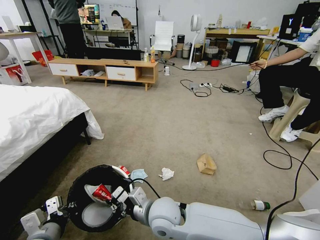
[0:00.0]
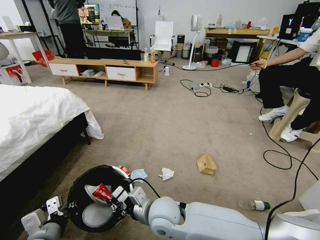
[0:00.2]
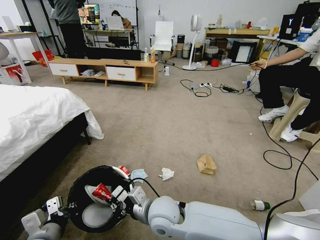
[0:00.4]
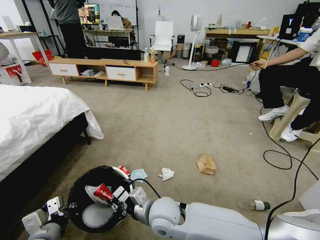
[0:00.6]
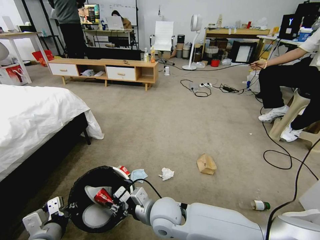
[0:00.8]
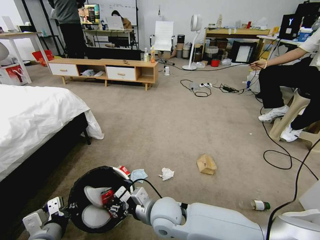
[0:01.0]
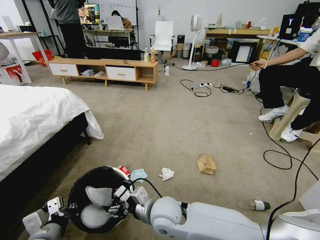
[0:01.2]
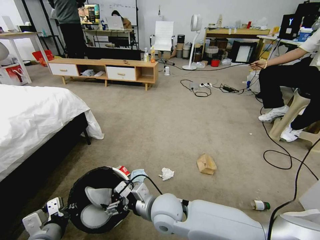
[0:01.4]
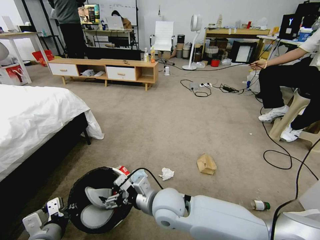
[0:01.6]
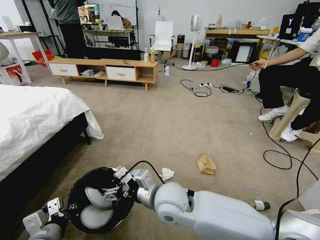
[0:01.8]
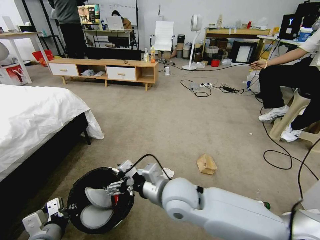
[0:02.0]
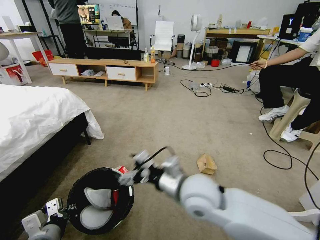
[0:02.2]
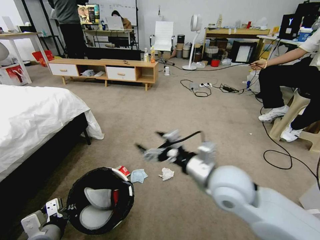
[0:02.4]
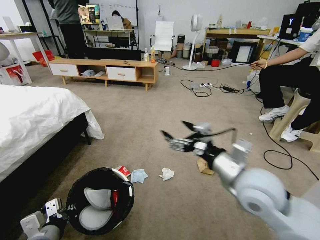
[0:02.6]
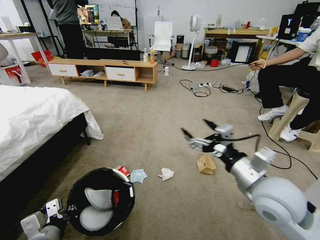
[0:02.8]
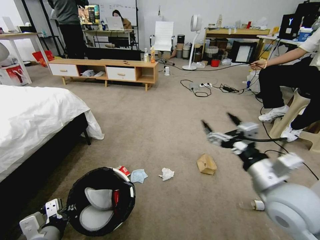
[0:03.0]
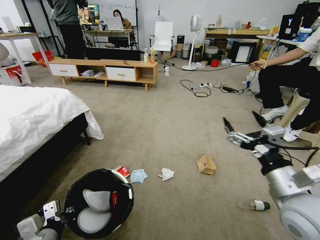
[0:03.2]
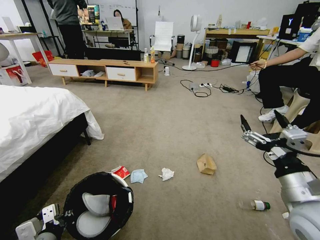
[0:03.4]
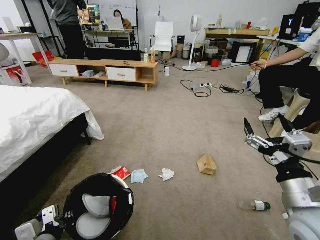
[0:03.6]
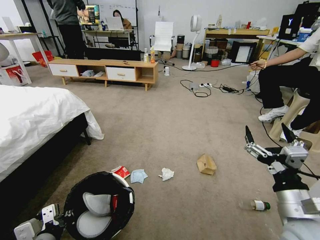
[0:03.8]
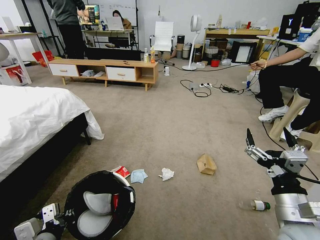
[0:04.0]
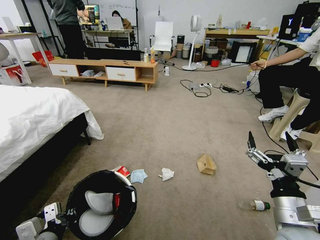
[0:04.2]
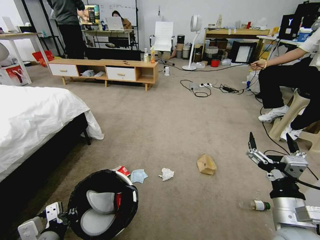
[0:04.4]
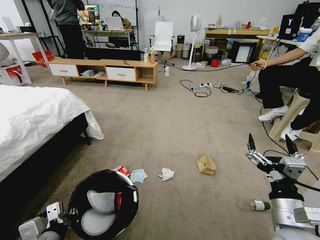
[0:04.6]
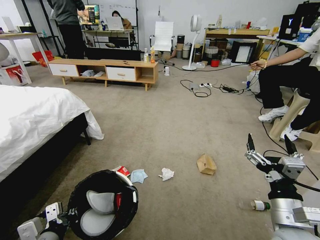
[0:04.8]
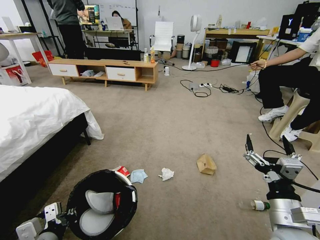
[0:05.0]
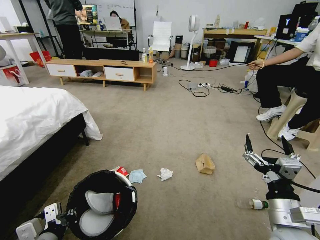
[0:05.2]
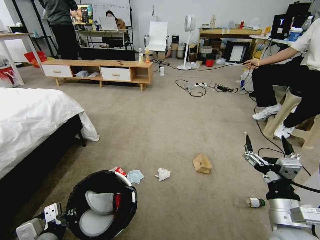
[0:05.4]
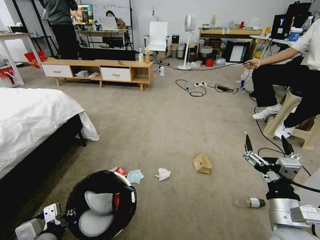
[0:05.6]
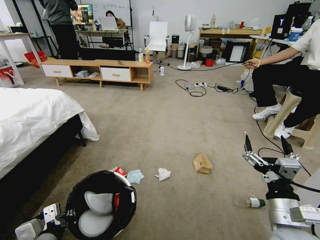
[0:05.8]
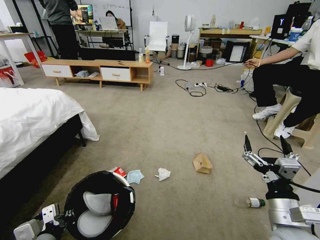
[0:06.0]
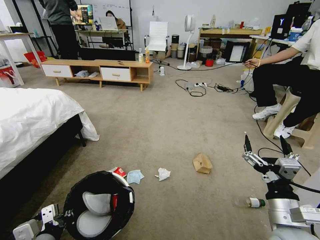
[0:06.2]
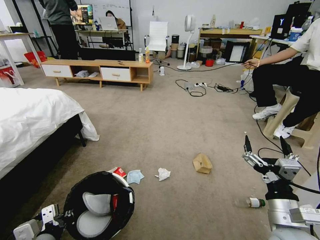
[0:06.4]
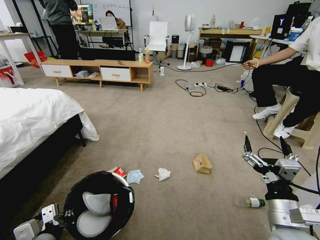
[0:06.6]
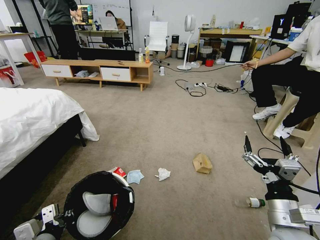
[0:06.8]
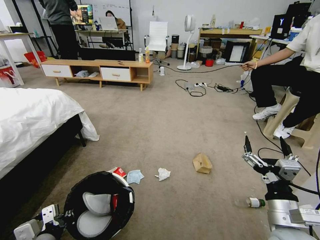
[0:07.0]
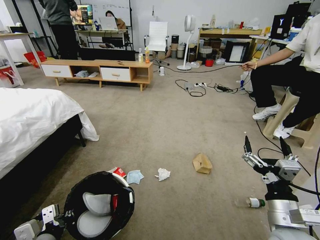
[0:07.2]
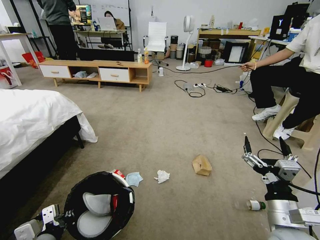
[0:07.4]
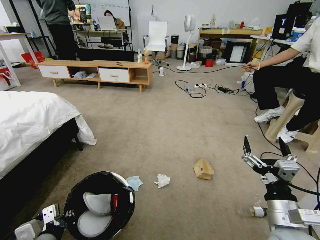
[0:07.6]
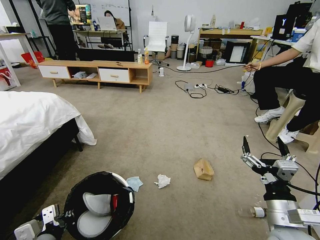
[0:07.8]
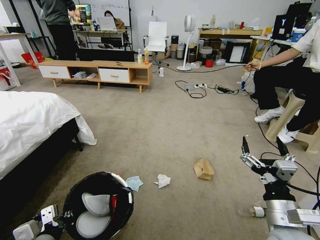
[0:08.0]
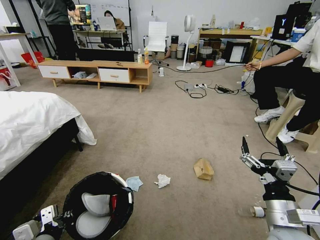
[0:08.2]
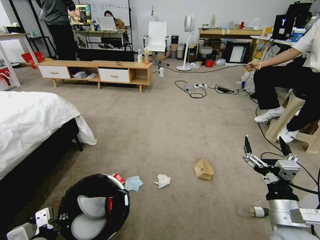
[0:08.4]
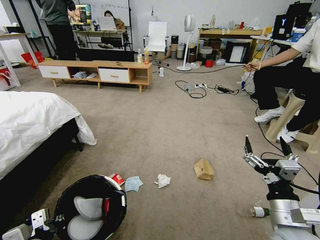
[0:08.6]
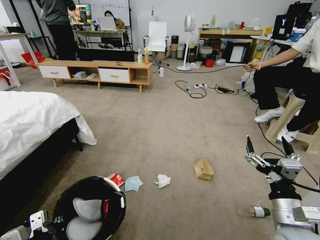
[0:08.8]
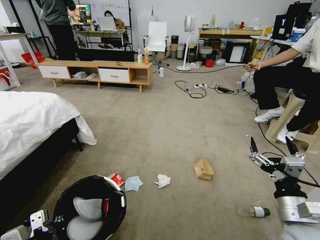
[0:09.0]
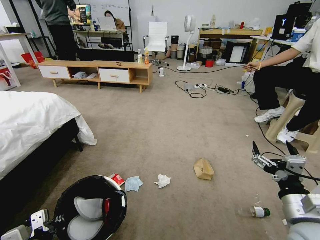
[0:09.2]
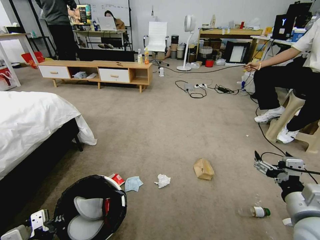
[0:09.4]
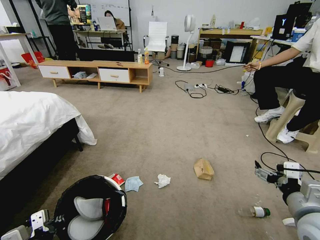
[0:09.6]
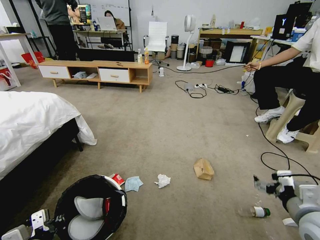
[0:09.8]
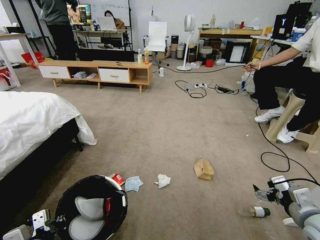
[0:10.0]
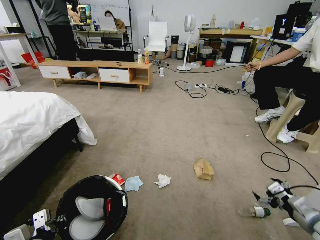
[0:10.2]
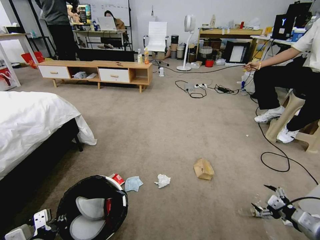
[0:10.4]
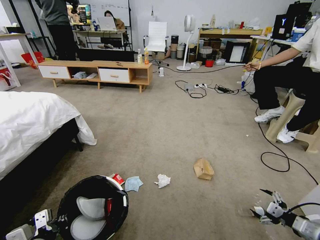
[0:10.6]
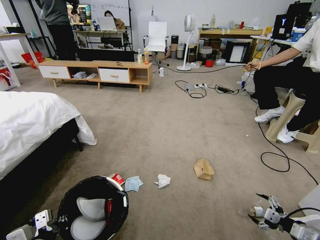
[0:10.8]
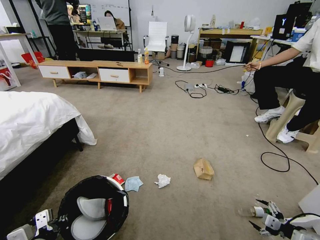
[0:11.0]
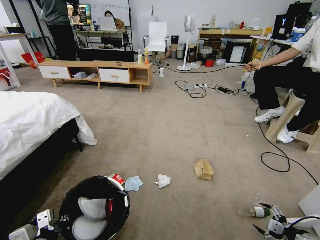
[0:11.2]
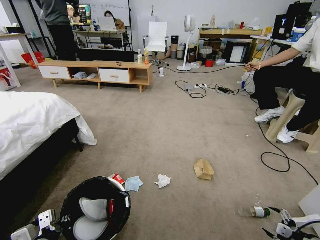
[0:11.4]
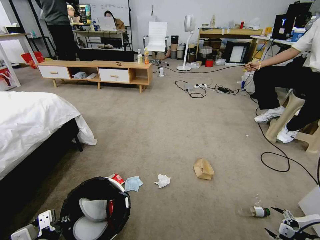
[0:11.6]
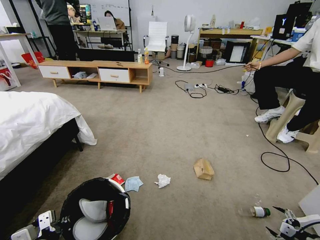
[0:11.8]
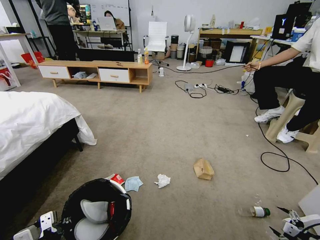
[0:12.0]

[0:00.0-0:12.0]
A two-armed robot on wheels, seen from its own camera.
Task of the whole recording: Pick up the trash bin and place the garbage on the floor into it.
0:00.0 to 0:01.6: The right gripper opens its fingers.
0:01.6 to 0:03.0: The right gripper heads to the right and upward, covering about 30 cm.
0:03.0 to 0:04.4: The right gripper heads downward and backward, covering approximately 10 cm.
0:06.0 to 0:07.6: The two grippers keep their place.
0:07.6 to 0:09.0: There are only small adjustments of the grippers.
0:09.0 to 0:10.4: The right gripper shifts approximately 20 cm to the right and downward.
0:10.4 to 0:12.0: The right gripper is displaced downward and to the right by approximately 15 cm.

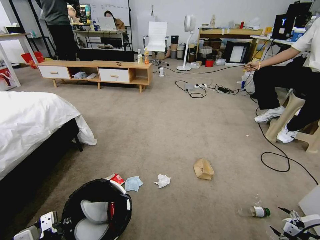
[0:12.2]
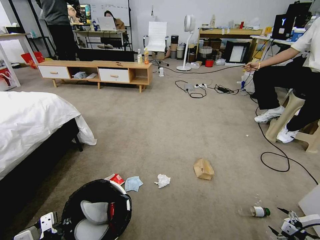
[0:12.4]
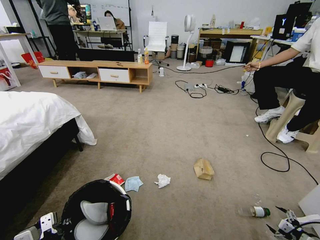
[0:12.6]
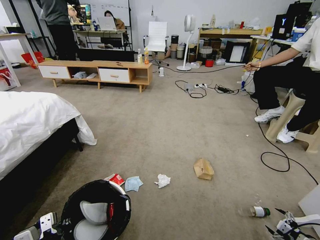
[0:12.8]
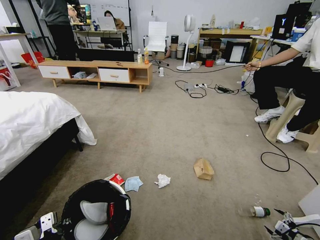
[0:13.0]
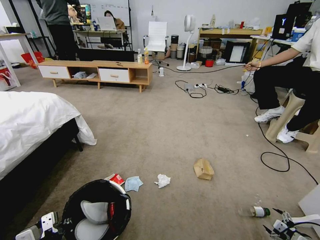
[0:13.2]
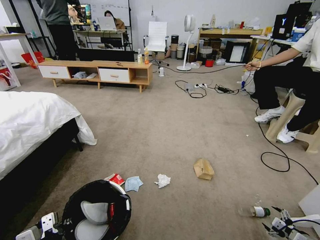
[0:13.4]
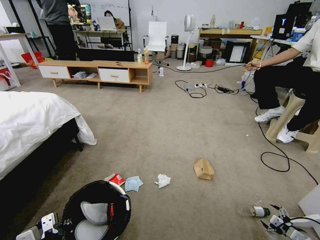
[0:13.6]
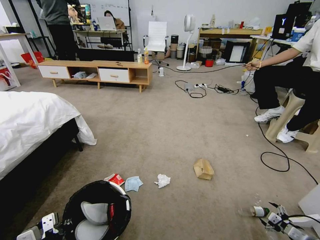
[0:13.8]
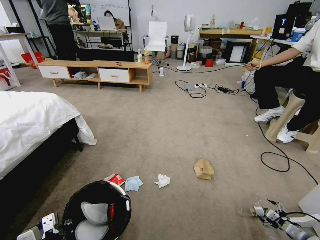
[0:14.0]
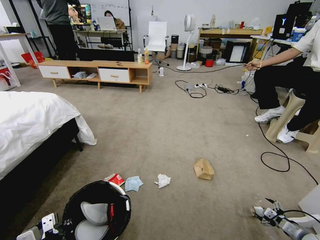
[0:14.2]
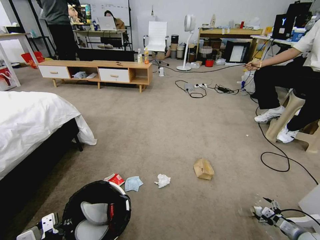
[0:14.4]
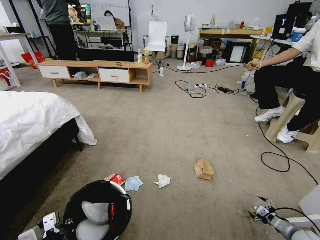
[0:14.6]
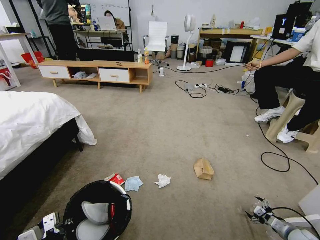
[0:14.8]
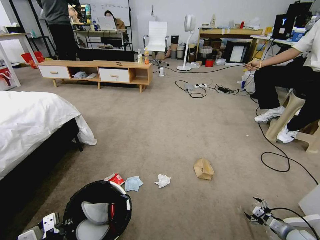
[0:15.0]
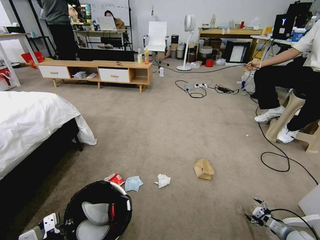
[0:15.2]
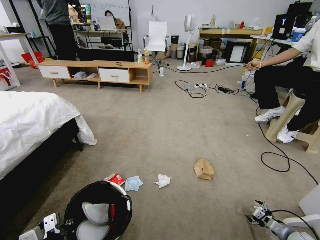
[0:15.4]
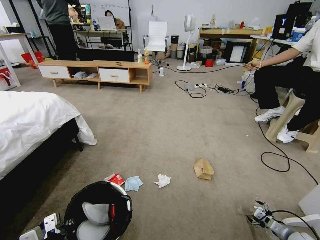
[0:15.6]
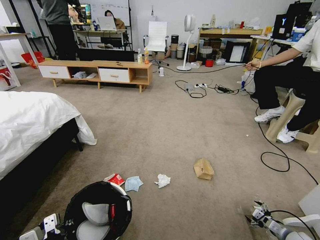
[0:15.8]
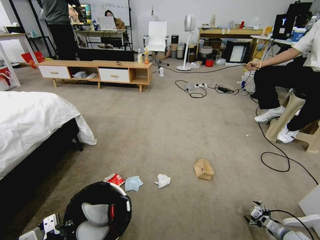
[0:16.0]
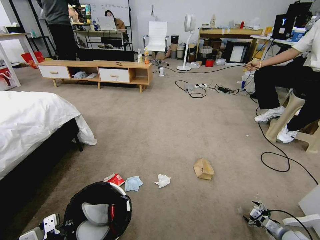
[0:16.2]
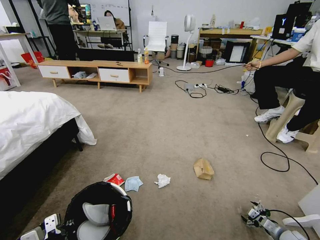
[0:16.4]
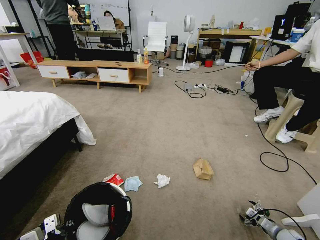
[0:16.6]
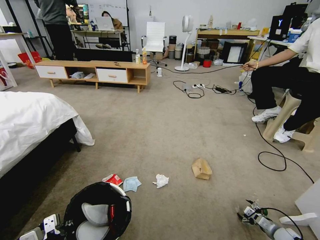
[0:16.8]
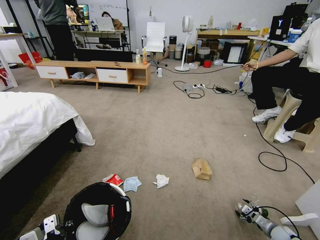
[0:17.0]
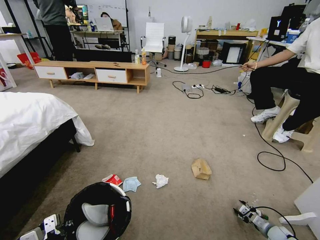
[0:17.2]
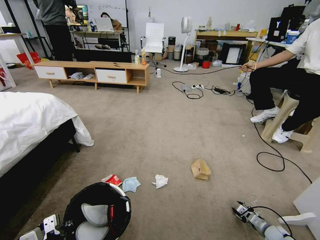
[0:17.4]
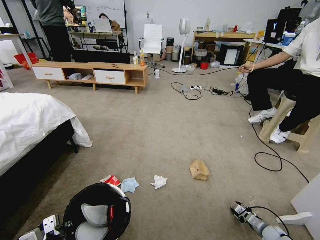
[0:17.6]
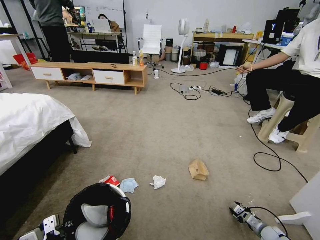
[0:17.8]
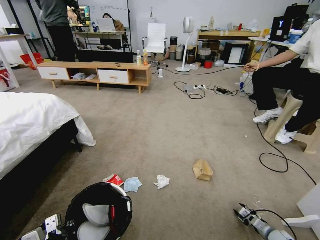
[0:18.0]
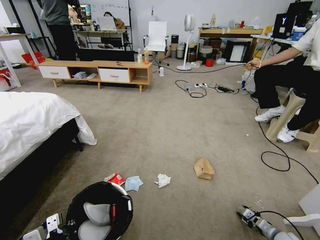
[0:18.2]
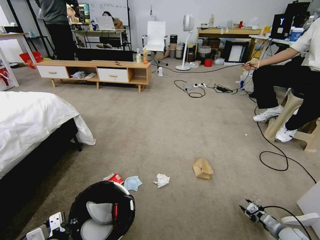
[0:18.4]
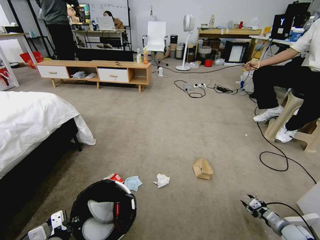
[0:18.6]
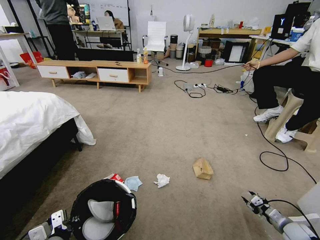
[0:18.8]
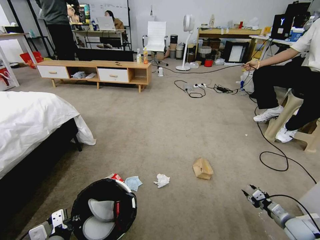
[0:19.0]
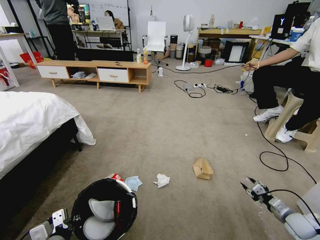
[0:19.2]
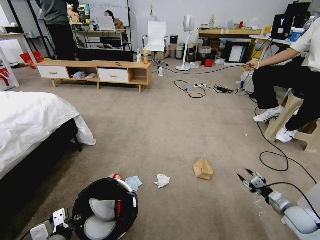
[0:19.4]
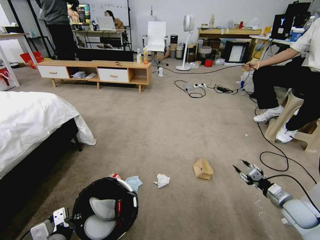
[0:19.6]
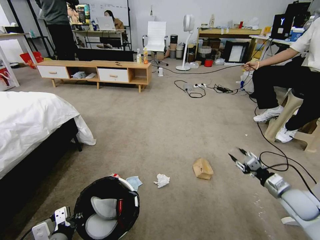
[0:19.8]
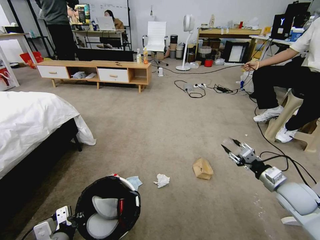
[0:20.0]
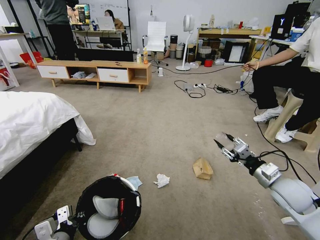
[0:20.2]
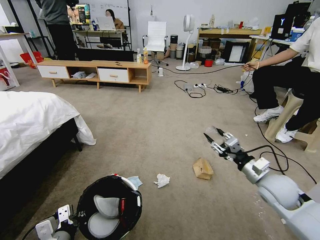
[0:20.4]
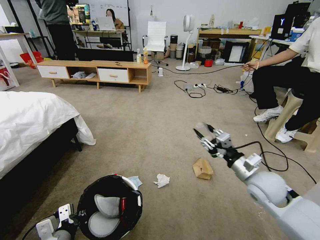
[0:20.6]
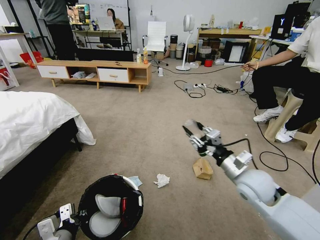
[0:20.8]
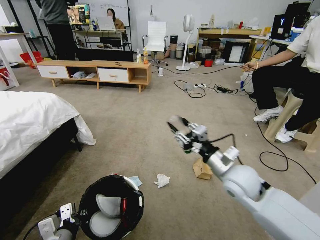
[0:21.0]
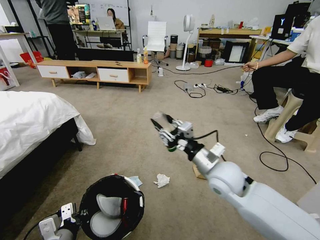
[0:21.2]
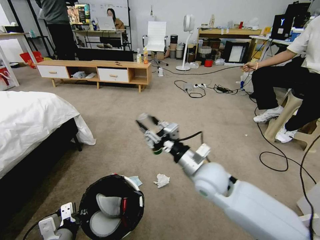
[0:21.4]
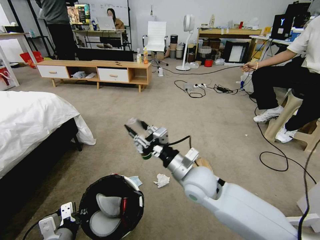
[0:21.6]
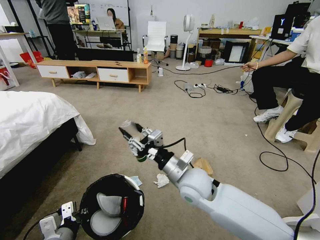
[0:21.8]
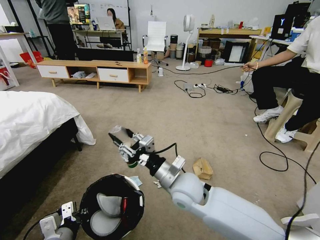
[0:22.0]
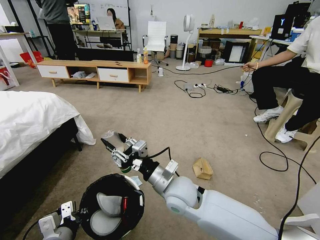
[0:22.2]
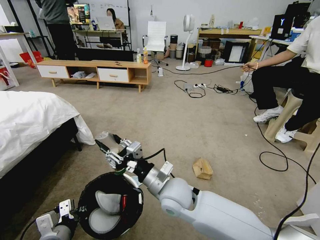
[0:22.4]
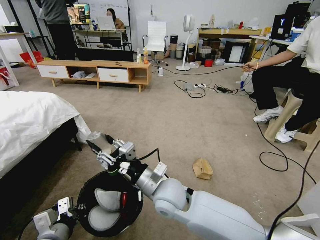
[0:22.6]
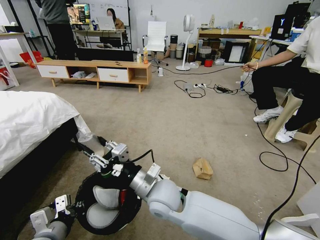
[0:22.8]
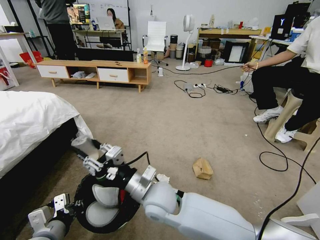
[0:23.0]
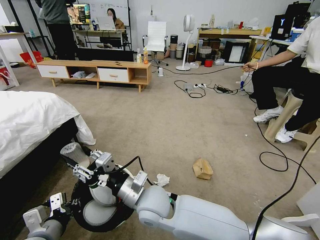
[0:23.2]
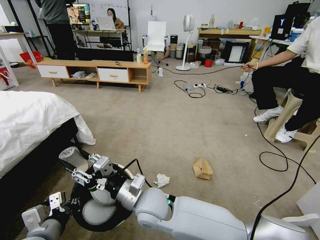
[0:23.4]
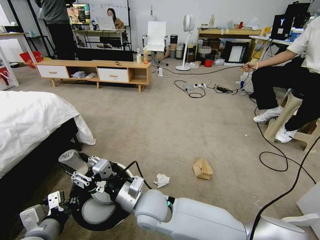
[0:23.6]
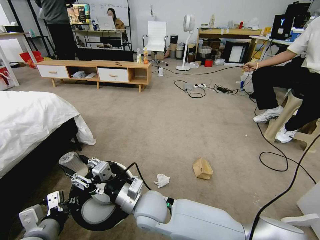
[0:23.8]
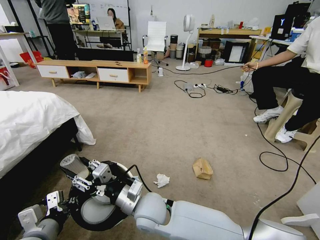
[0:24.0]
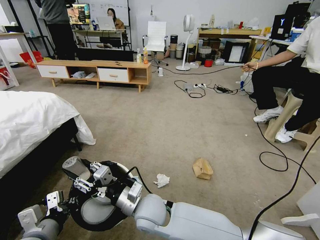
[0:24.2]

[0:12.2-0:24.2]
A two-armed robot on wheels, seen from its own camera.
Task of the whole recording: Pick up the trash bin and place the garbage on the floor into it.
0:12.2 to 0:13.8: The right gripper travels downward and forward by approximately 10 cm.
0:13.8 to 0:15.2: The right gripper moves some 5 cm.
0:15.2 to 0:16.6: The grippers move only a little.
0:16.6 to 0:18.2: The right gripper closes its fingers.
0:18.2 to 0:19.8: The right gripper travels upward by about 25 cm.
0:19.8 to 0:21.2: The right gripper heads to the left and upward, covering about 30 cm.
0:21.2 to 0:22.6: The right gripper heads to the left, covering some 15 cm.
0:22.6 to 0:24.2: The right gripper moves to the left and downward, approximately 5 cm.
